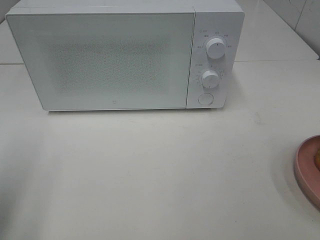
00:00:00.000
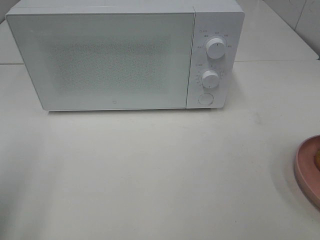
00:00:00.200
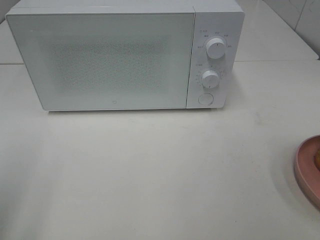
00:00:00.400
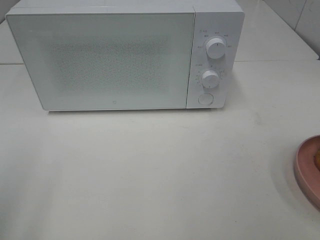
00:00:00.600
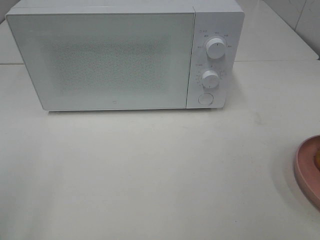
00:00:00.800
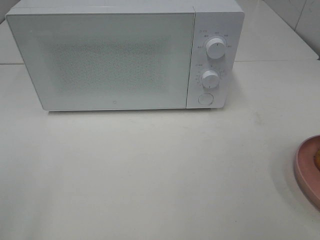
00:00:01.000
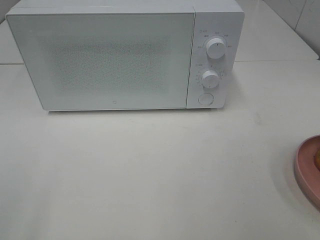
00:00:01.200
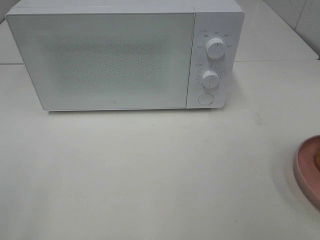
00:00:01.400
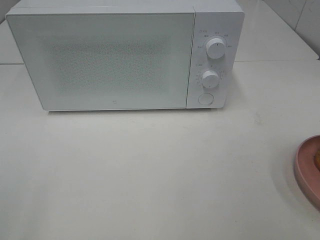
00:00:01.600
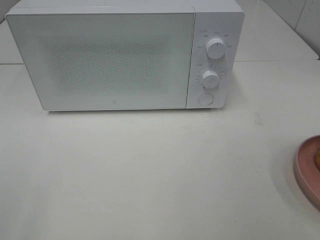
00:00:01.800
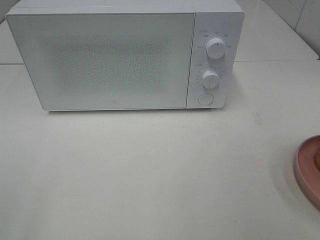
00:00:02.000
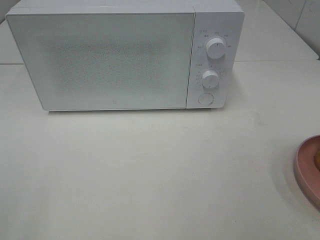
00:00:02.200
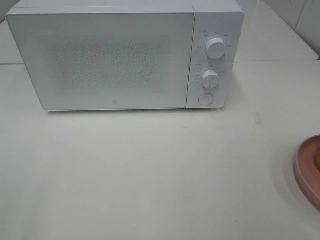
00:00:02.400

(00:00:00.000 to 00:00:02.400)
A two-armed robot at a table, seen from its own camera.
Task of the whole recording: Heat the burger.
00:00:00.000 - 00:00:01.200: The left gripper moves backward, roughly 10 cm.
00:00:01.200 - 00:00:02.400: Both grippers stay put.

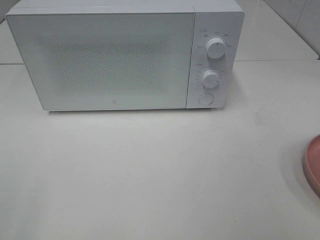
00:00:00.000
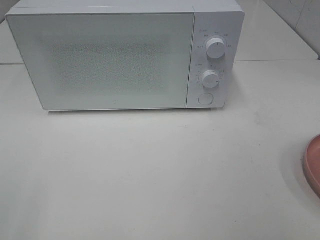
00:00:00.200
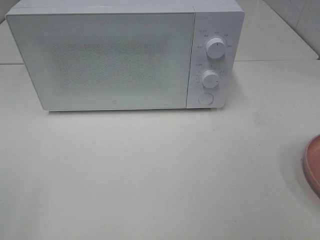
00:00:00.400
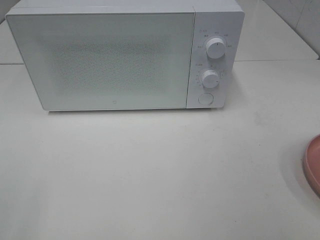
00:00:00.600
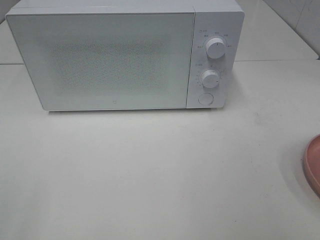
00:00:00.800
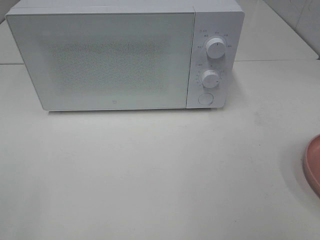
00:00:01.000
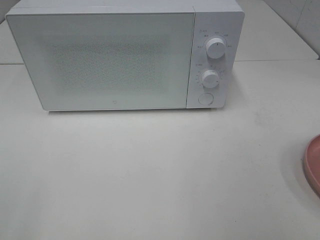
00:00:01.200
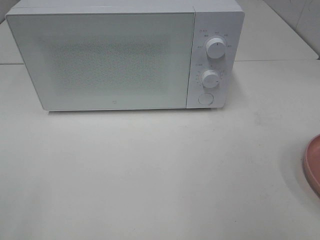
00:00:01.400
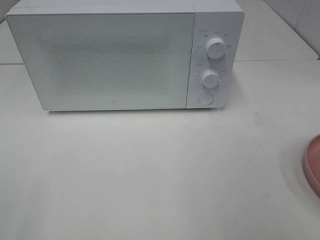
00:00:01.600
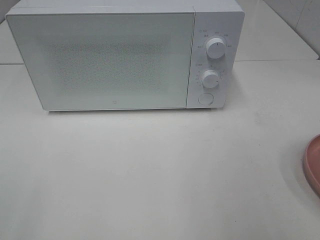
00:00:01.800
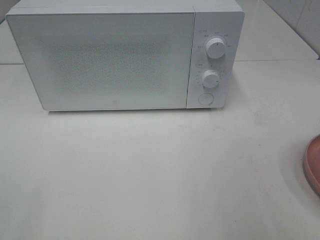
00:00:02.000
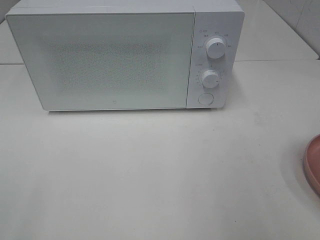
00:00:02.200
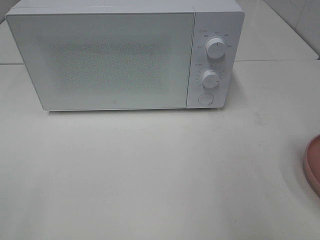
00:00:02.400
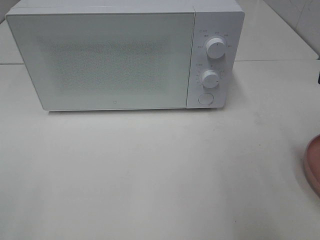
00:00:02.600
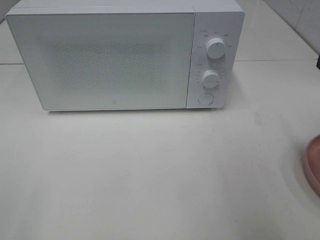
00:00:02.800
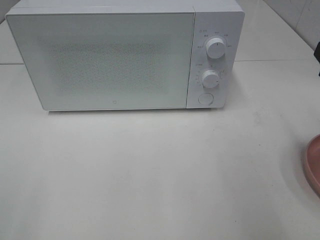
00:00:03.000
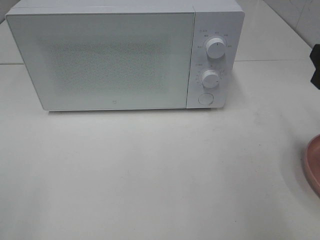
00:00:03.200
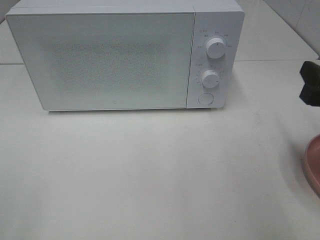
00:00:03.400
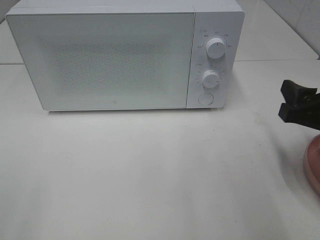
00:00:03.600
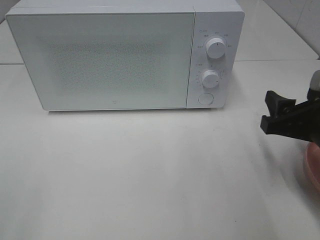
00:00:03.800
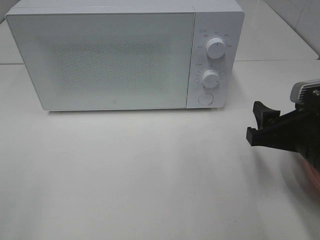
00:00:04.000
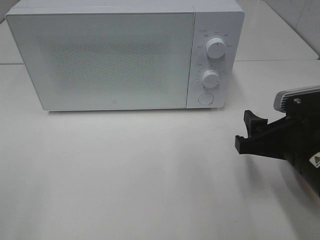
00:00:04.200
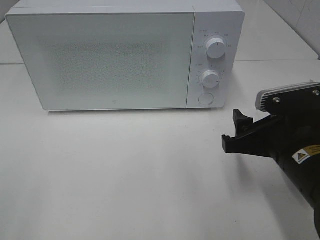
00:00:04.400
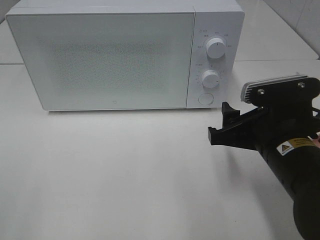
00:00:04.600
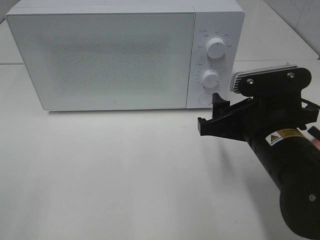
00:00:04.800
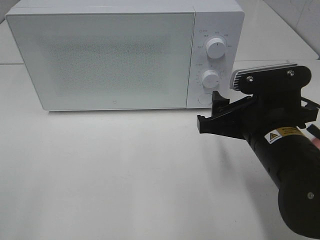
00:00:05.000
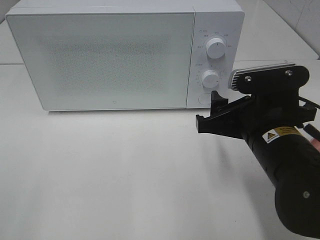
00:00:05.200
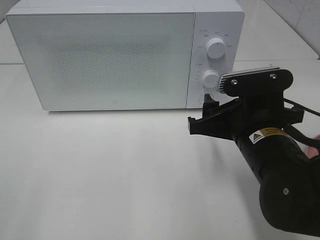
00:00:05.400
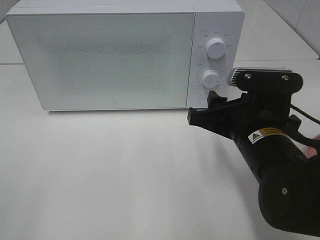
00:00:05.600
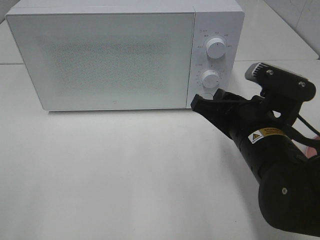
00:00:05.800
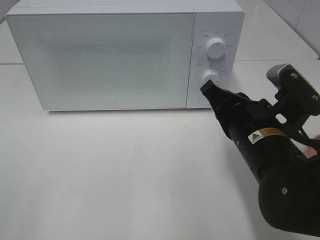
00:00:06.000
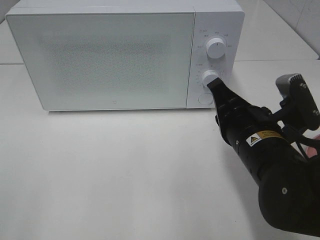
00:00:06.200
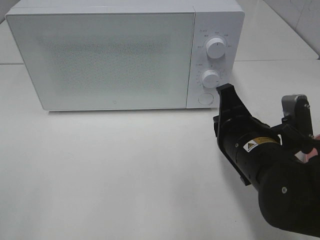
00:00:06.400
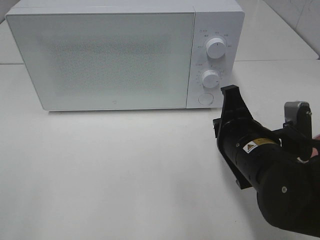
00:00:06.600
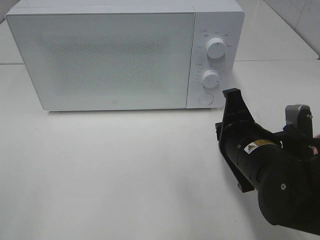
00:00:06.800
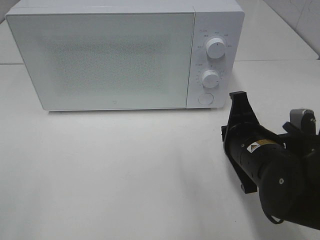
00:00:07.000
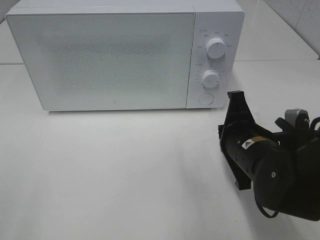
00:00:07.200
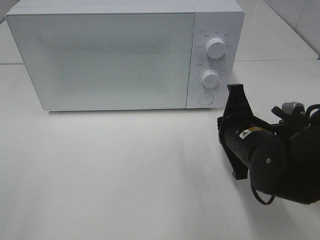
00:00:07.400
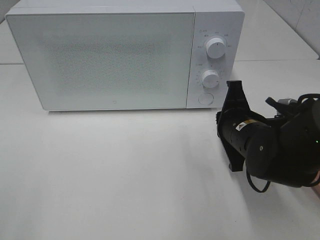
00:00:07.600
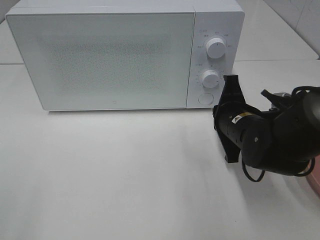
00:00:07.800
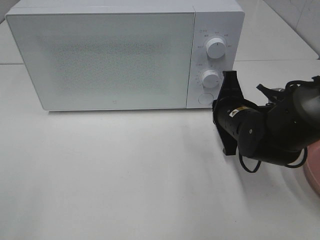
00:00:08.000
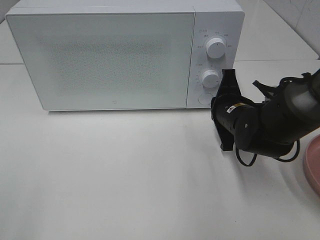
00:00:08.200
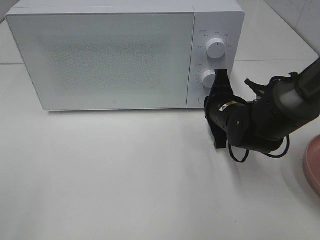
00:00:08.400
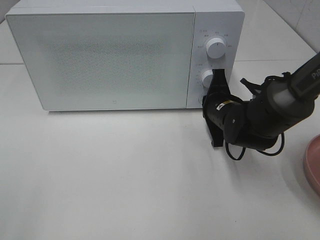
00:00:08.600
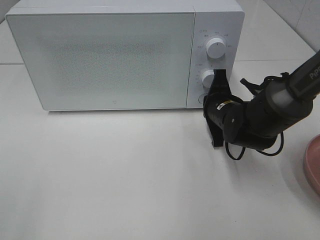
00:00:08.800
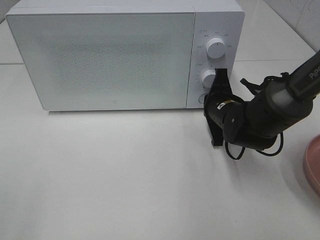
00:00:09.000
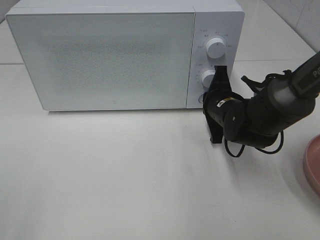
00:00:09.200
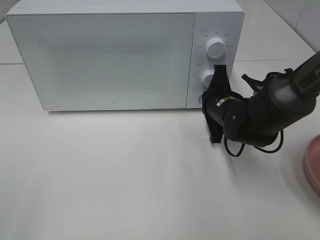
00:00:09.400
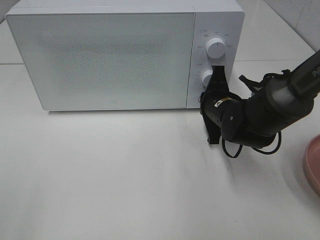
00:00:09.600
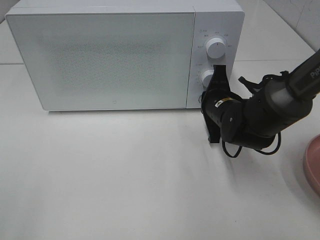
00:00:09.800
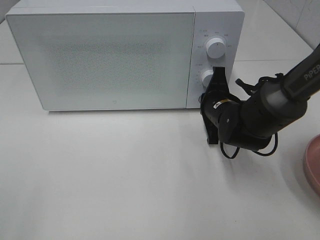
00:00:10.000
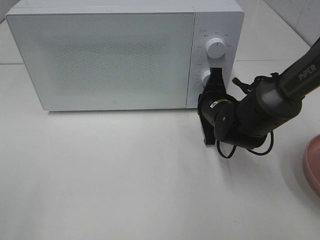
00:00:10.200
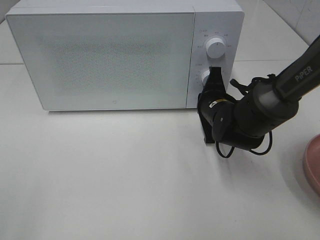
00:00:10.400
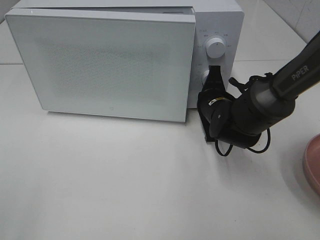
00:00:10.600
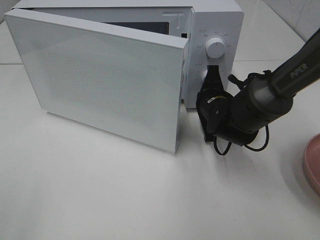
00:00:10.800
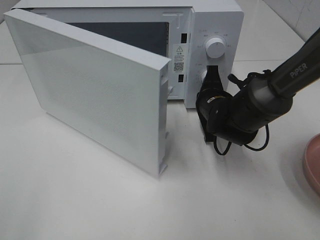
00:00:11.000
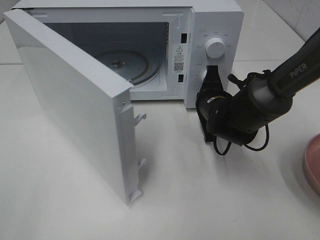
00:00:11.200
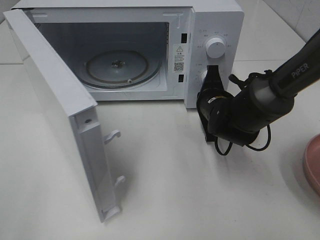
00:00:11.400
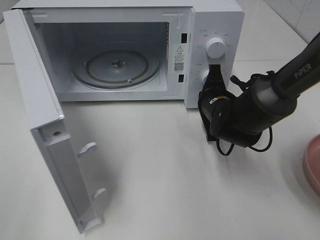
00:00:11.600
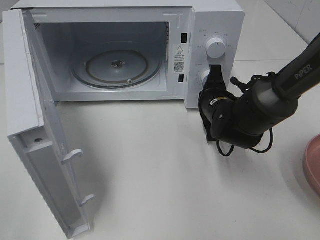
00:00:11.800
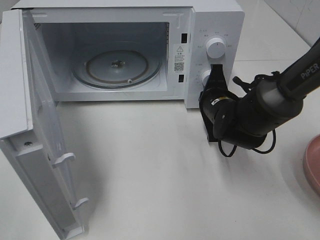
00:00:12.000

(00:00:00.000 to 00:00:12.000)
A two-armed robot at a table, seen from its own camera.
Task of the whole recording: Heat the burger.
00:00:03.000 - 00:00:04.400: The right gripper moves downward and to the left, about 15 cm.
00:00:04.400 - 00:00:06.000: The right gripper changes place by some 5 cm, and closes its fingers.
00:00:06.000 - 00:00:07.600: The right gripper moves forward, approximately 5 cm.
00:00:07.600 - 00:00:09.000: The right gripper travels forward by about 10 cm.
00:00:09.000 - 00:00:10.400: The grippers stay close to where they were, moving slightly.

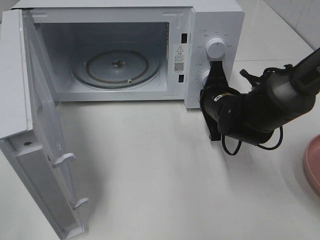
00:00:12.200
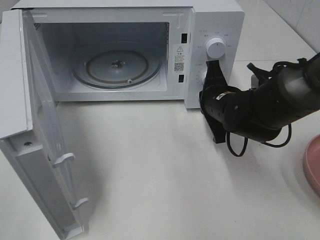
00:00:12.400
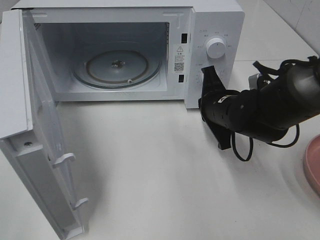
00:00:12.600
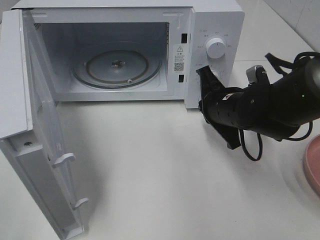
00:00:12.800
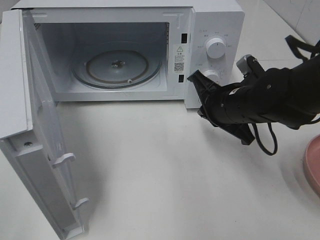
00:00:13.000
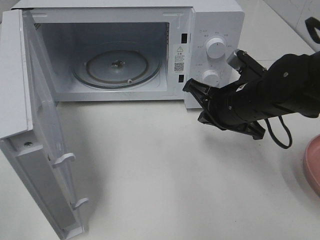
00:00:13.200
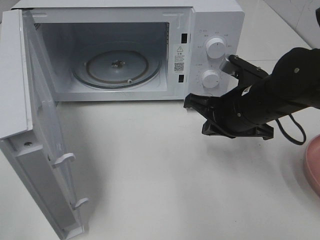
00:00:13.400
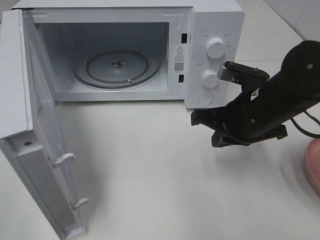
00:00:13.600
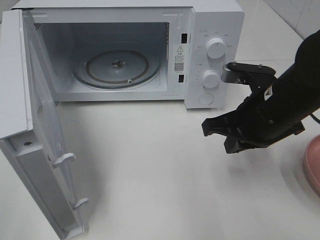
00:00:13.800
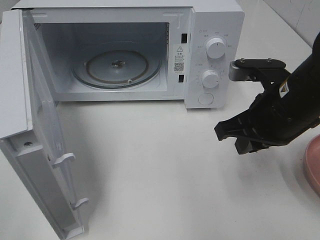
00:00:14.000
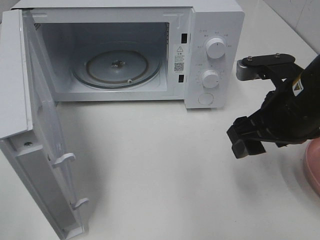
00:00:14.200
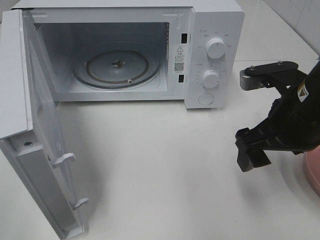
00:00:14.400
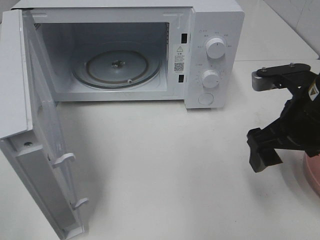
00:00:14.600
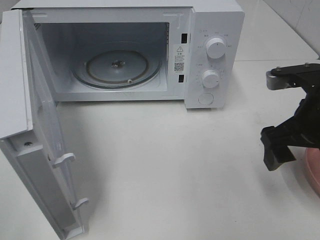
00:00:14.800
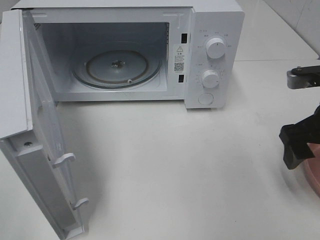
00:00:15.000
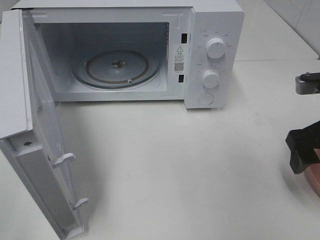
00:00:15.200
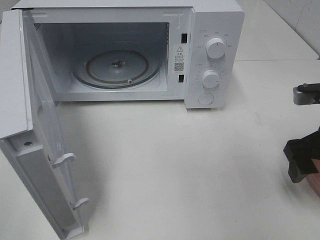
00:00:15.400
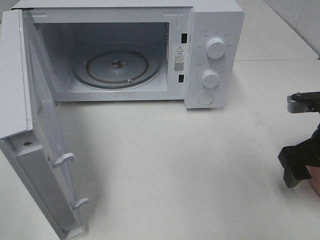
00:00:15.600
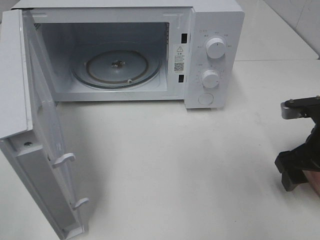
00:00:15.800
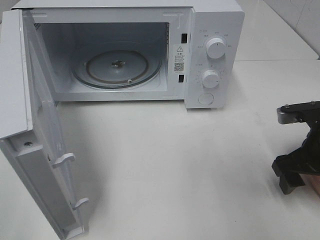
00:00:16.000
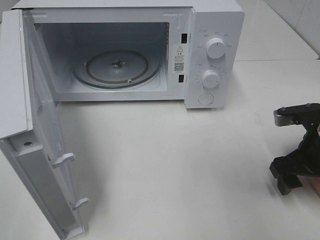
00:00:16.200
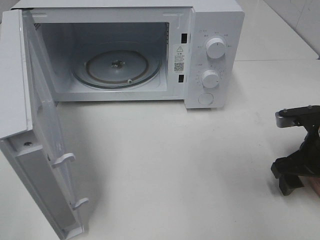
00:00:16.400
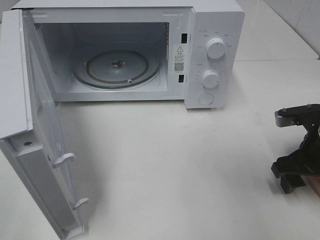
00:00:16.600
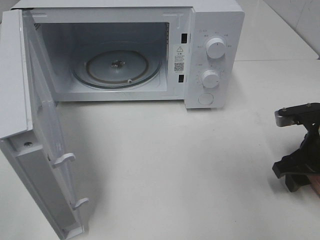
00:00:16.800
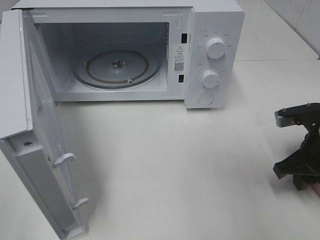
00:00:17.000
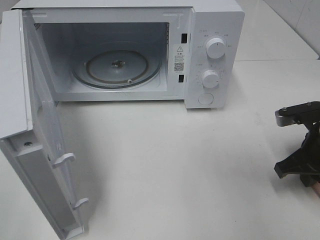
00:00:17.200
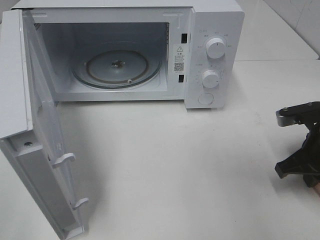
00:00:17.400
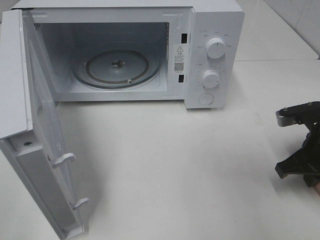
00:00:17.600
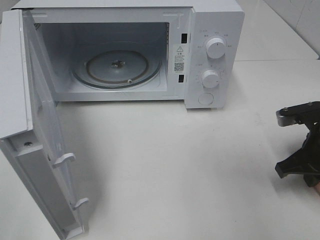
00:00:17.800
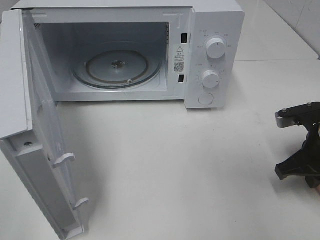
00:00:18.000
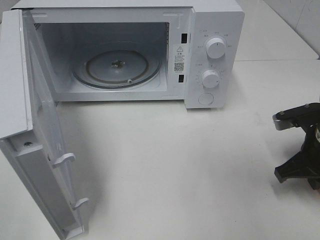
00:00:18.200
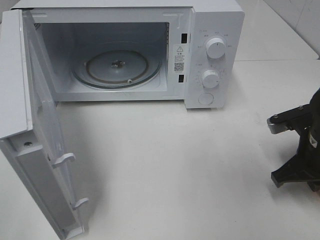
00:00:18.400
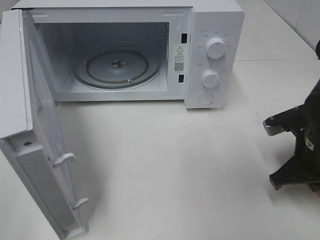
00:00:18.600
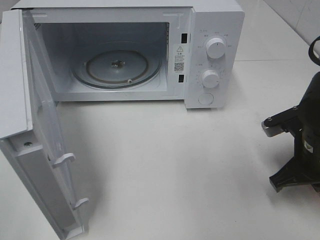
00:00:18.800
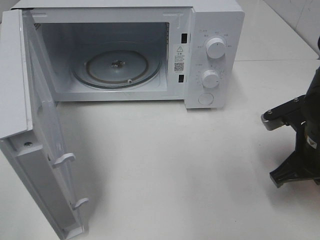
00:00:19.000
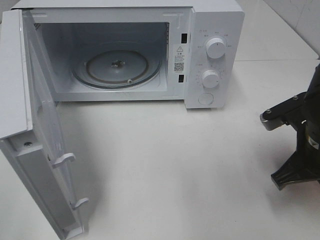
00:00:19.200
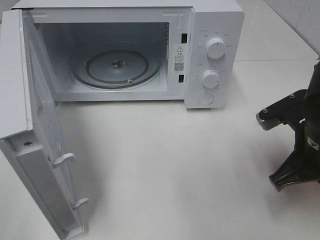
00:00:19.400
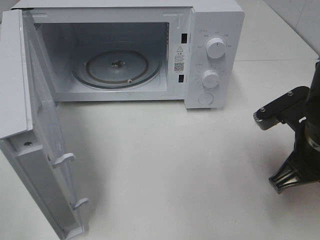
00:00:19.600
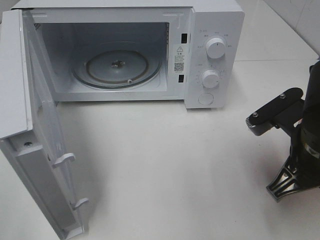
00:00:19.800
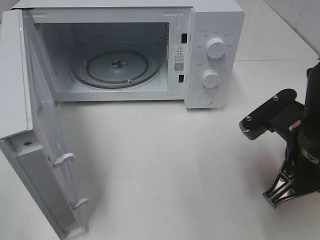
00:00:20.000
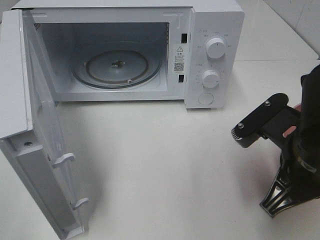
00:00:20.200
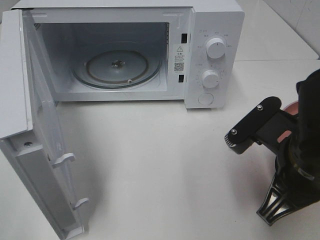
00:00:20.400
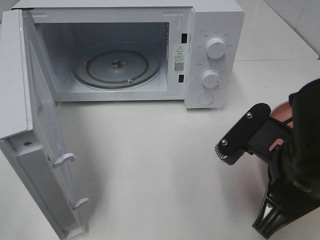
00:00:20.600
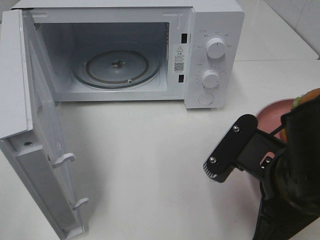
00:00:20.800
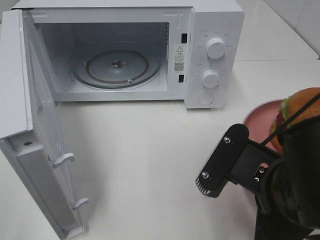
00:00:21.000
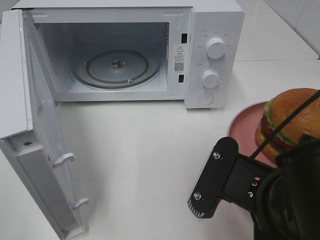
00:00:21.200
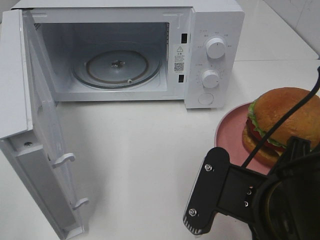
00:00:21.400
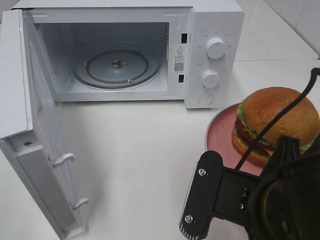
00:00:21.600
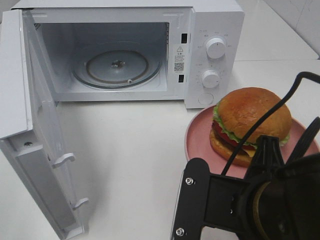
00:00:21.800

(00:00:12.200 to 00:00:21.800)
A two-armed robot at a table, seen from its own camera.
Task of the whole recording: Heat the burger.
Step, 00:00:12.400 - 00:00:17.400: Right hand: grab the plate with the hamburger.
00:00:12.200 - 00:00:13.800: The right gripper shifts some 10 cm backward and upward.
00:00:13.800 - 00:00:15.400: The right gripper travels to the right by about 10 cm, and opens up.
00:00:15.400 - 00:00:17.000: The right gripper goes approximately 5 cm downward, and closes its fingers.
00:00:17.000 - 00:00:18.600: The right gripper closes its fingers.
00:00:18.600 - 00:00:20.200: The right gripper travels to the left, backward and upward by approximately 10 cm.
00:00:20.200 - 00:00:21.800: The right gripper is displaced to the left and backward by approximately 10 cm.
